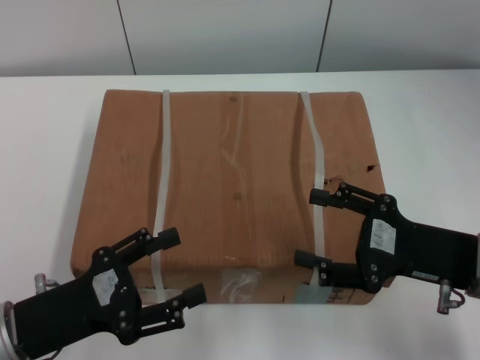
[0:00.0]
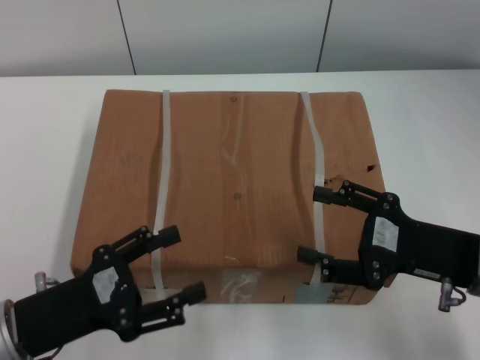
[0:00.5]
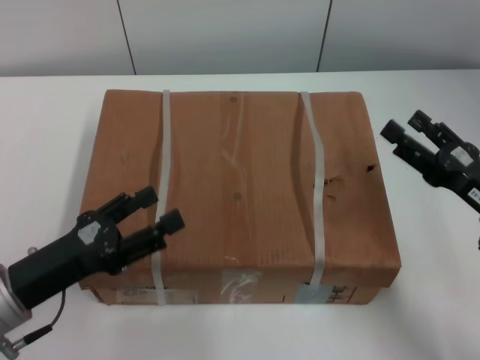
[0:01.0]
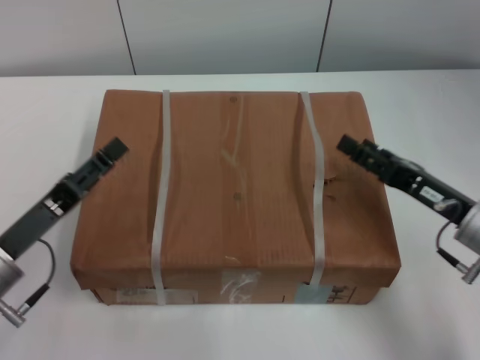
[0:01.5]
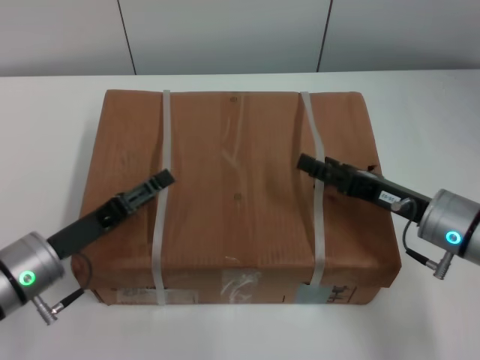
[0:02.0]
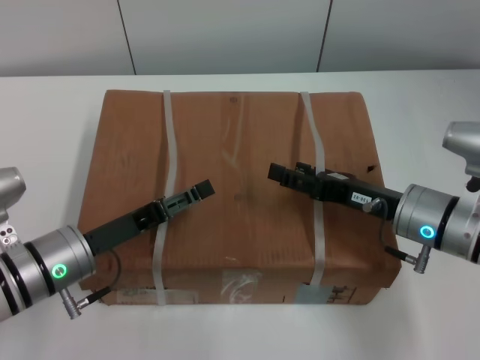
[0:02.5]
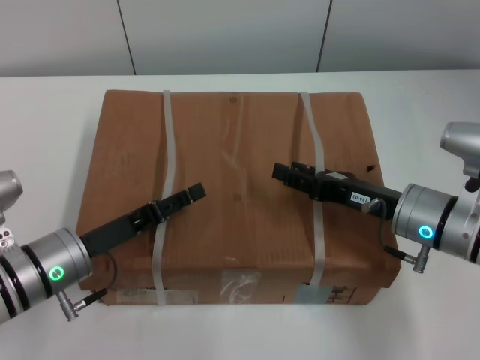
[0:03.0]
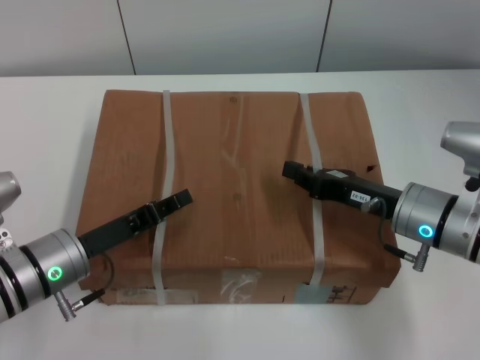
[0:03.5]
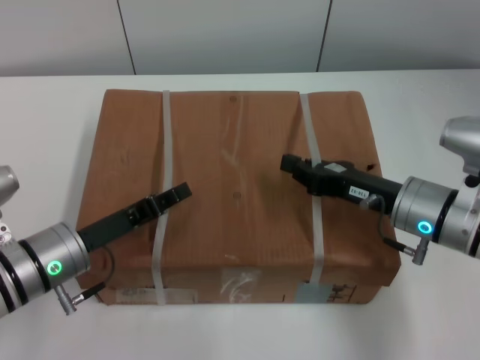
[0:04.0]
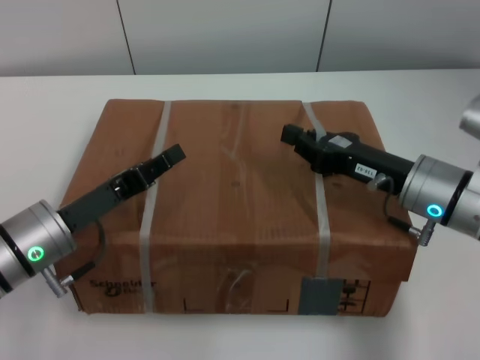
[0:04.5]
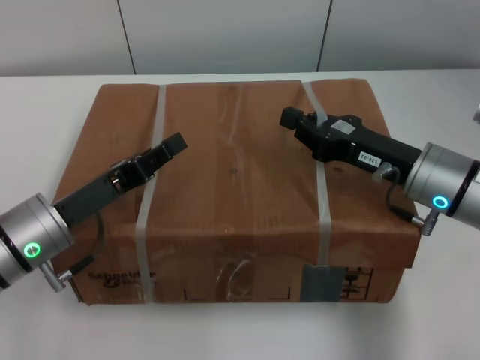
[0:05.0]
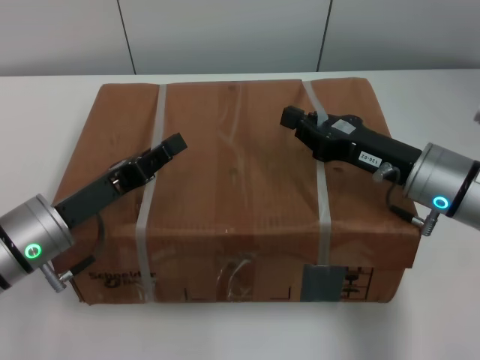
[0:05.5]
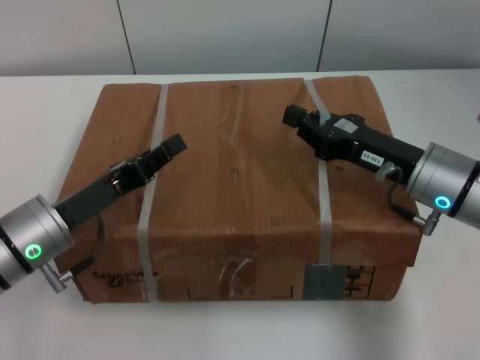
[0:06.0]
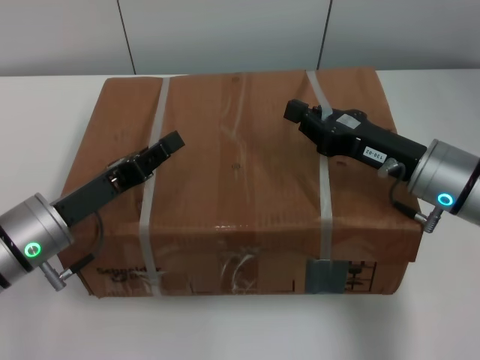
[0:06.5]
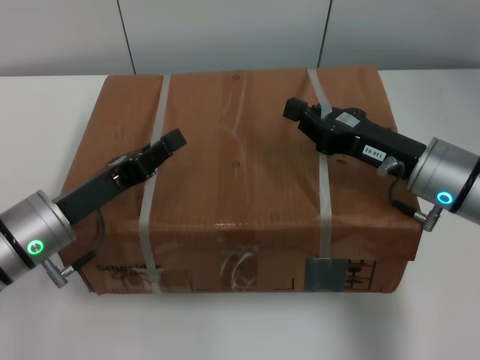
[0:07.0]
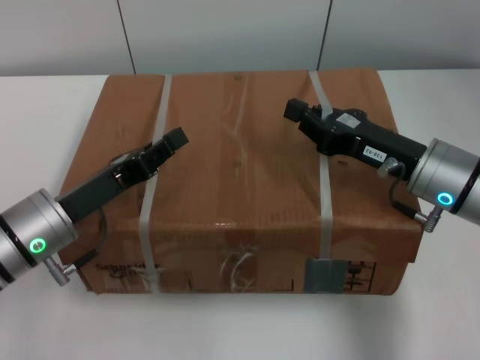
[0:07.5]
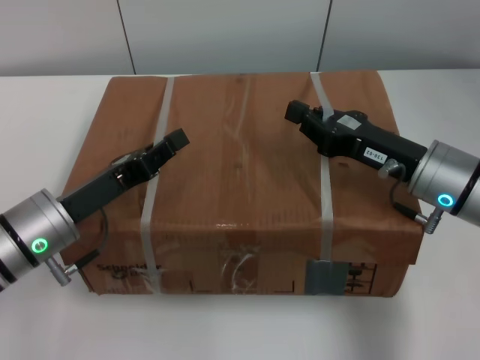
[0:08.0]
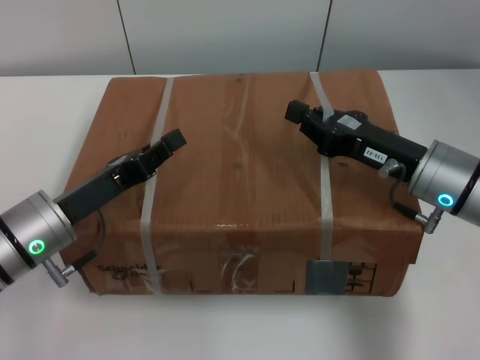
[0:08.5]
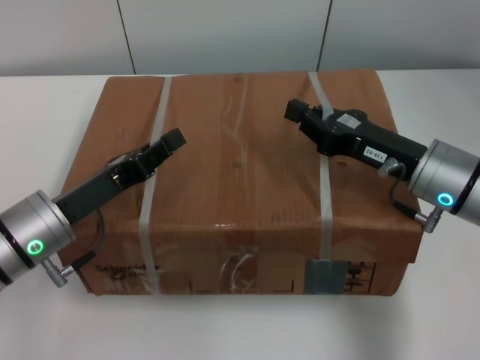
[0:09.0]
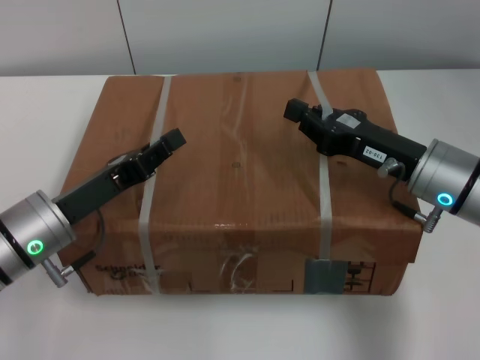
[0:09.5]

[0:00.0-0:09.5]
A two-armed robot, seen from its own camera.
Task of the whole recording: pick up the box from the table with both arms.
Step, 0:00.0 to 0:03.5: Grasp the bandage with left gripper.
Step, 0:00.0 to 0:03.5: Grasp the bandage with right gripper.
Step, 0:04.0 to 0:04.5: Lift the box with left gripper.
Step, 0:04.0 to 0:04.5: Lift the box with right gripper.
0:00.0 to 0:02.0: Both grippers travel together forward, approximately 5 cm.
0:02.0 to 0:04.0: The right gripper closes up; the left gripper closes.
0:05.5 to 0:09.5: The two grippers keep their place.

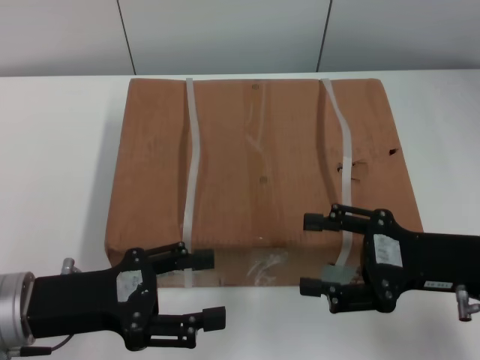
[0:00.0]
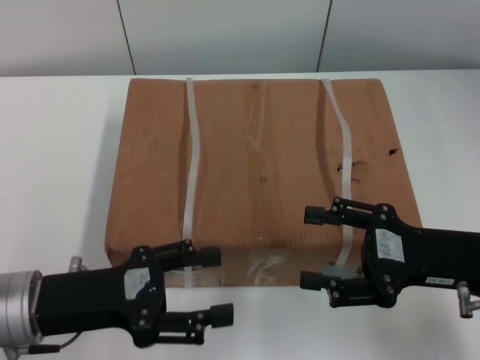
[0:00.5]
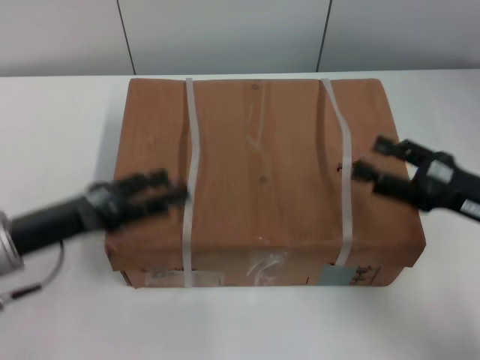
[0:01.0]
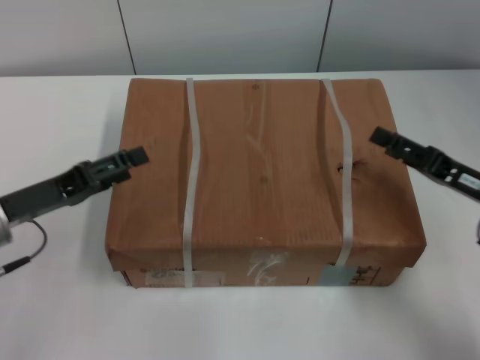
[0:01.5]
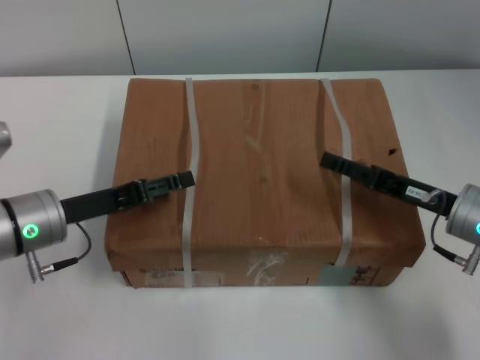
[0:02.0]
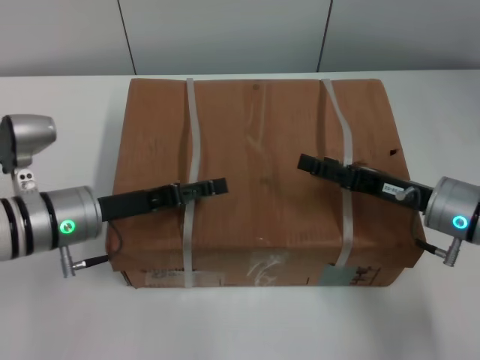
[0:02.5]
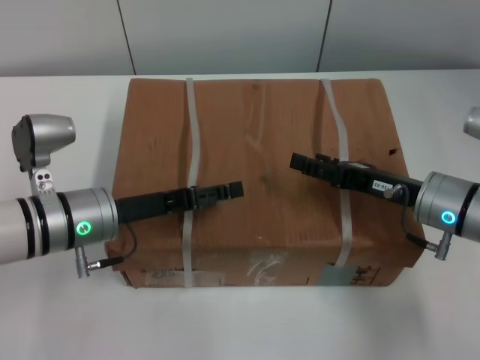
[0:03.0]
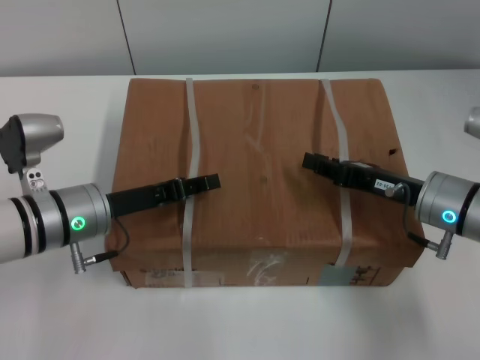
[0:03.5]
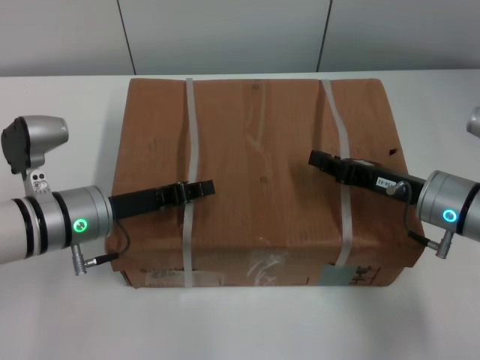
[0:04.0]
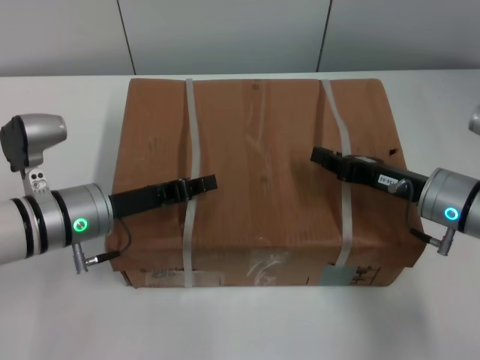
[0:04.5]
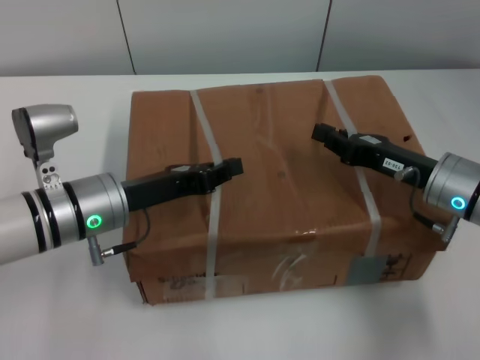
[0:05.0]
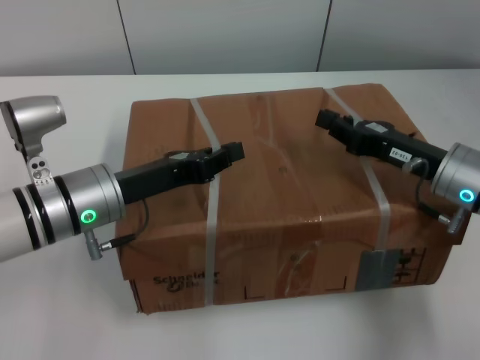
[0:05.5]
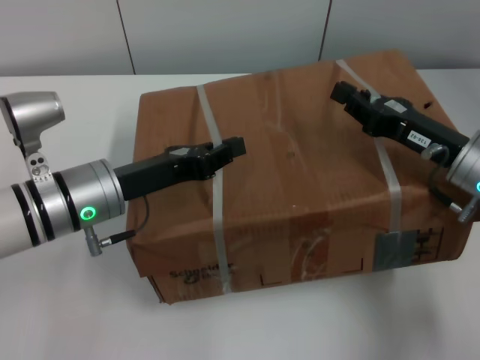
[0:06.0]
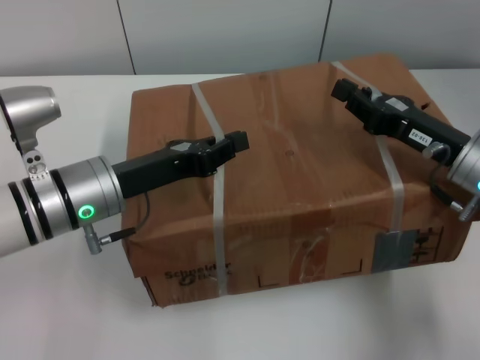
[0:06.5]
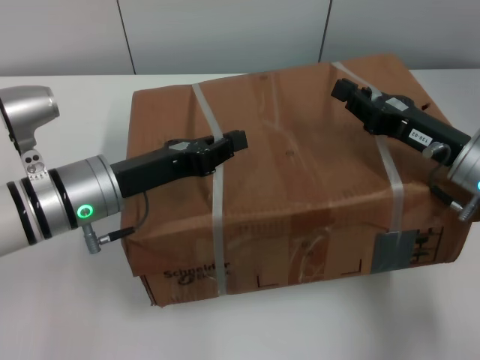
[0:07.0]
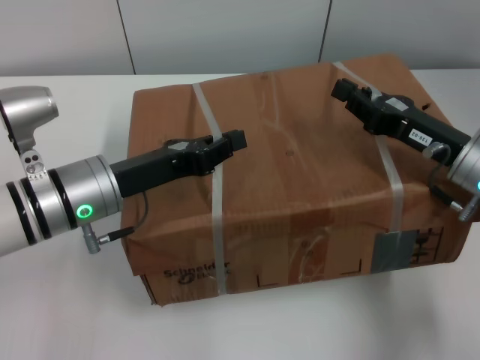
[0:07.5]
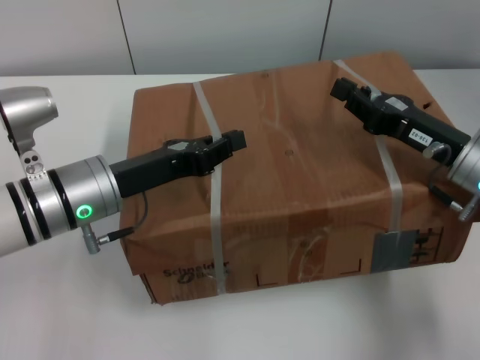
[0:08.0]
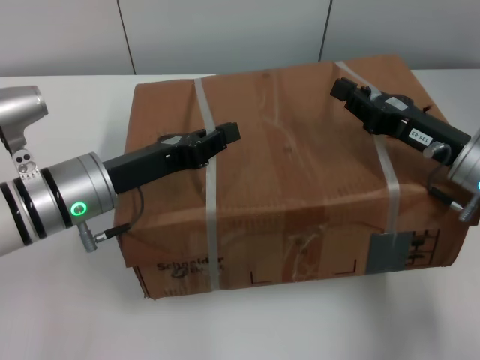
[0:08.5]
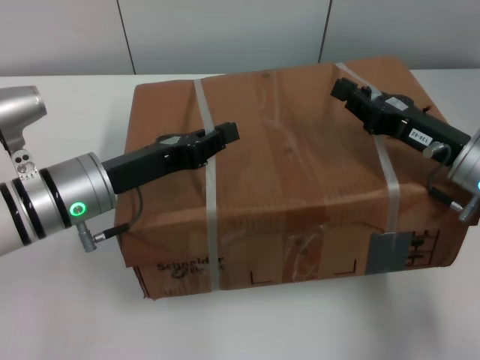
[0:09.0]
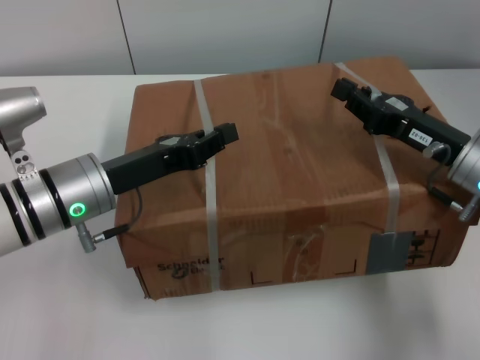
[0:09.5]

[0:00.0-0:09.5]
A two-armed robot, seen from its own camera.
Task of the whole recording: pick up the box from the table with both arms.
Step, 0:00.0 to 0:03.5: Grasp the bandage with left gripper.
Step, 0:00.0 to 0:03.5: Grasp the bandage with right gripper.
Step, 0:04.0 to 0:06.0: Lift the box with left gripper.
Step, 0:04.0 to 0:06.0: Lift the box with right gripper.
0:00.0 to 0:02.0: The left gripper shifts some 10 cm forward. The right gripper goes about 5 cm forward.
0:02.0 to 0:04.0: The right gripper closes; the left gripper closes.
0:07.5 to 0:09.5: Neither gripper changes place.
